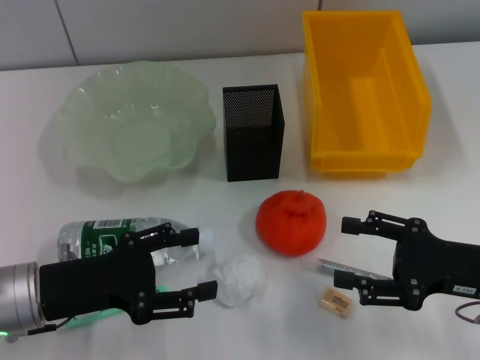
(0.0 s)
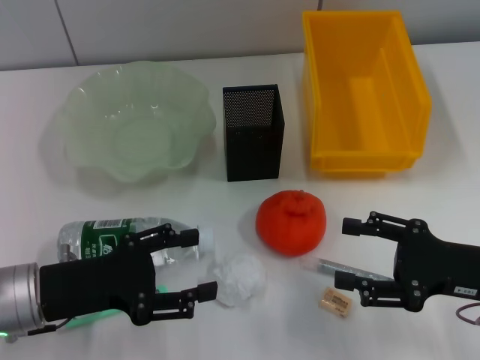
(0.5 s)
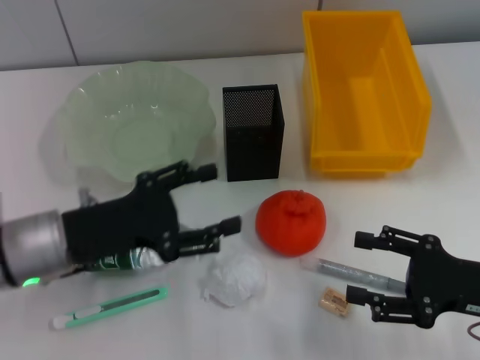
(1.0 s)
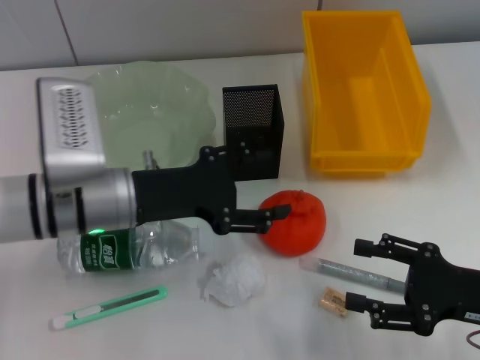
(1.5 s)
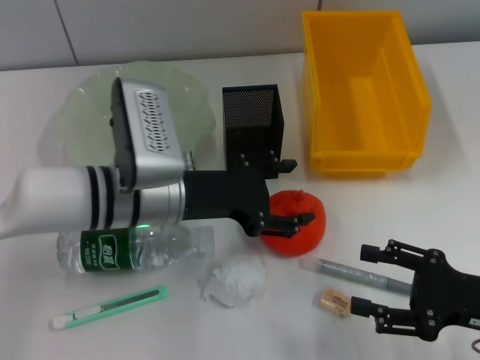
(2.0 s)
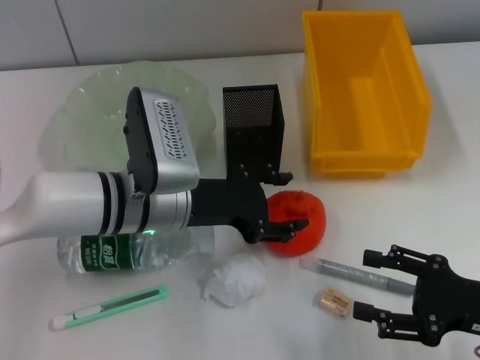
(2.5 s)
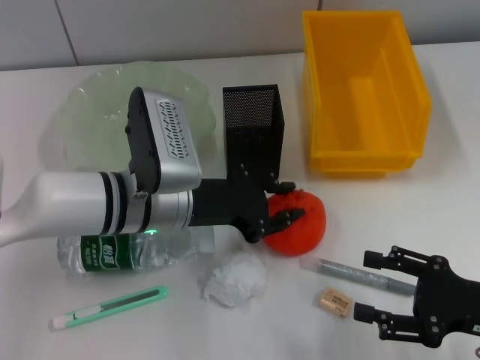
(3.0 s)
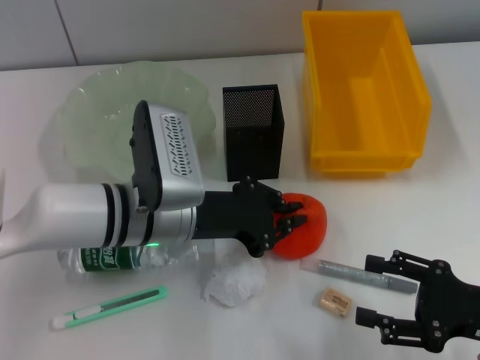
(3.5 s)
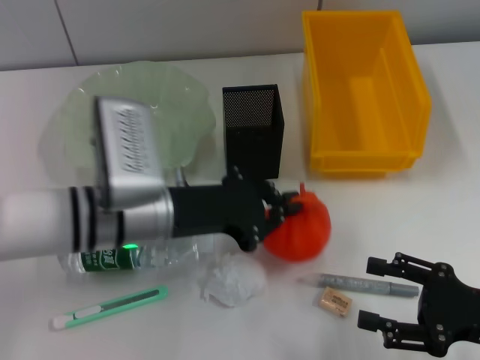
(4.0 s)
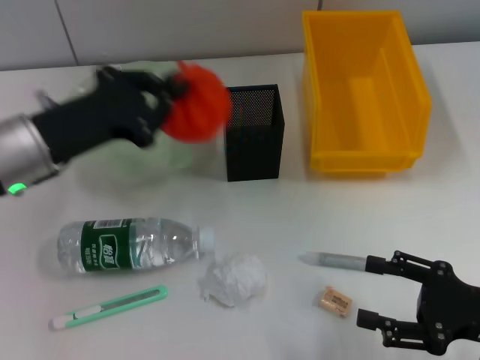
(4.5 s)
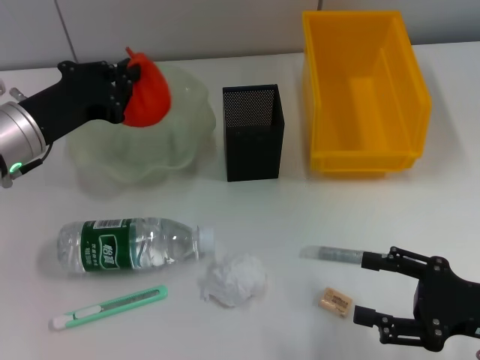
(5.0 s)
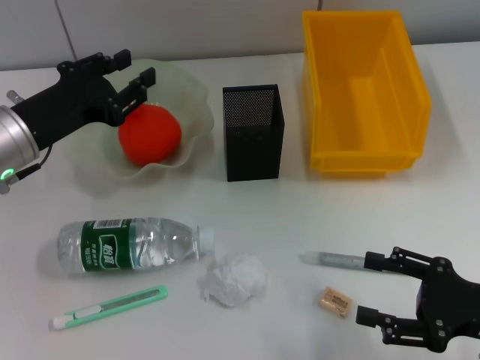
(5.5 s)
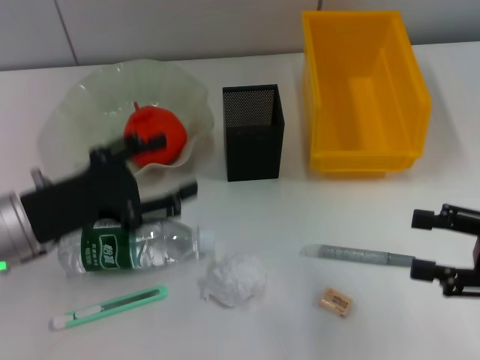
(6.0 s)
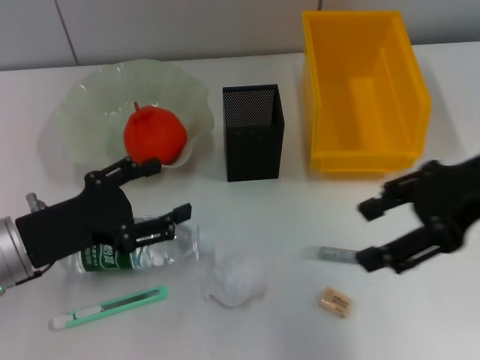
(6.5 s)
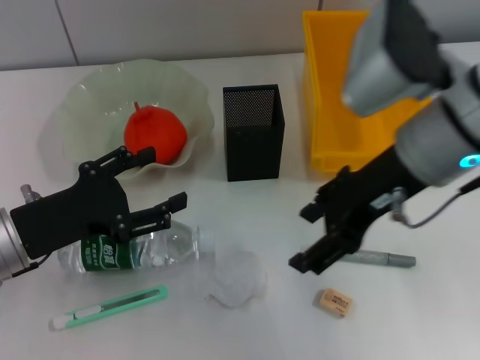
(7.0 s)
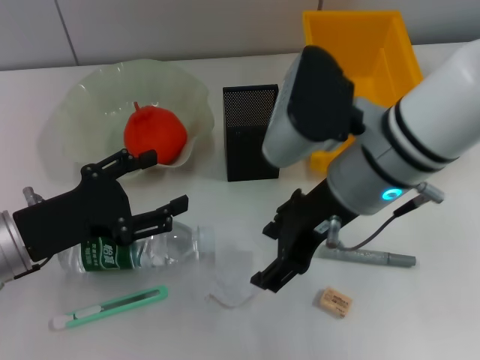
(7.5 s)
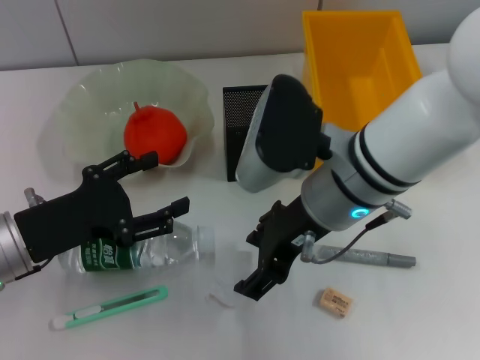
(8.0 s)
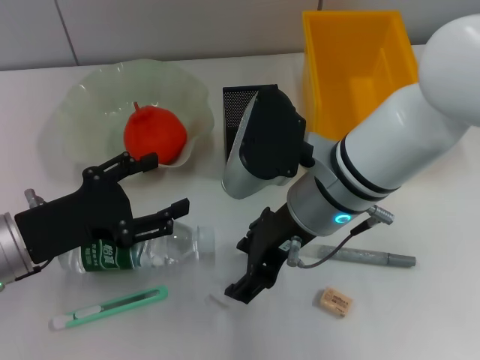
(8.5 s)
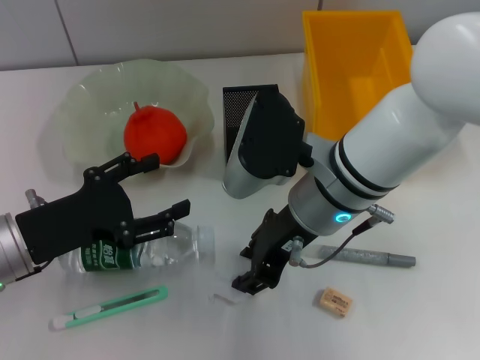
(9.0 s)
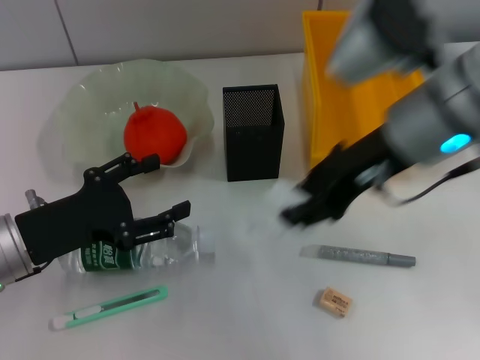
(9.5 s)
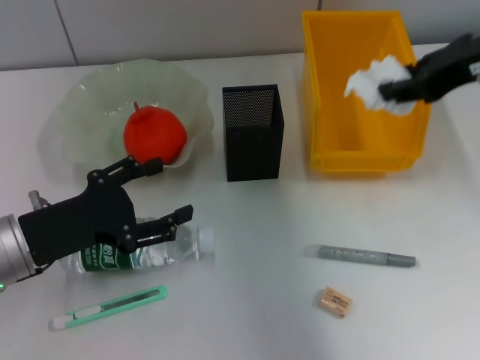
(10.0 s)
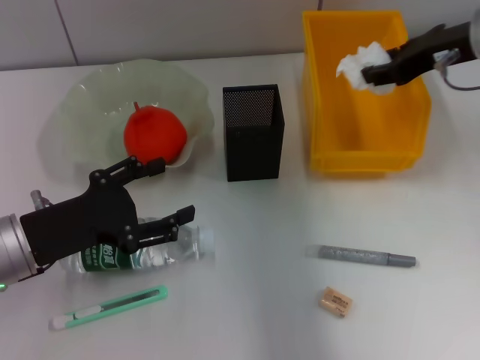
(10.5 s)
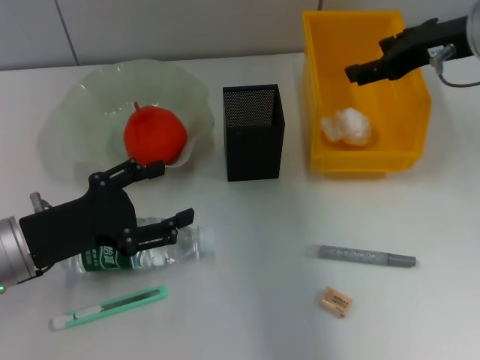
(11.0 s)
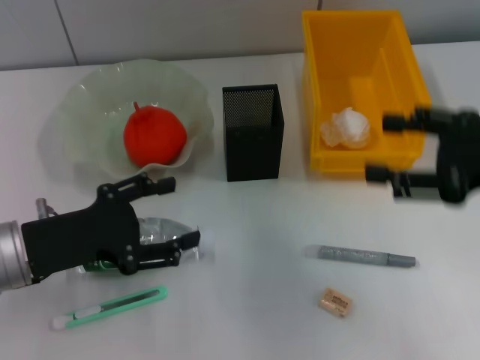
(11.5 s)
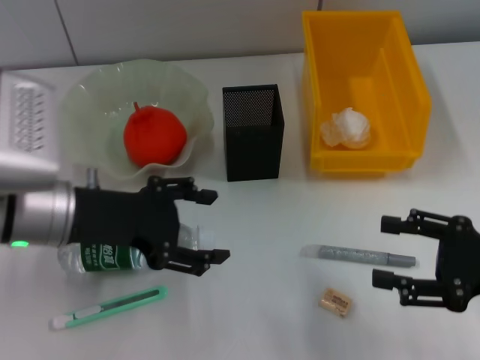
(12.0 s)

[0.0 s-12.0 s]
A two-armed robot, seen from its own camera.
Step, 0.0 to 3.0 s: Grab the orange with the left hand.
Step, 3.5 to 5.5 s: Place the orange into the fruit bowl with the left hand.
Step, 6.0 to 8.5 s: Grab the paper ball with the right hand.
Step, 9.0 to 10.5 s: Place the paper ball into the trash can with the right hand.
0.0 to 2.0 s: The left gripper is displaced to the right and forward by approximately 15 cm.
2.0 to 4.0 s: The left gripper closes.
4.0 to 6.0 s: The left gripper travels to the left by about 10 cm, and opens. The right gripper is displaced upward by some 5 cm.
6.0 to 8.0 s: The right gripper moves to the left and forward, roughly 25 cm.
8.0 to 10.0 s: The right gripper shifts approximately 20 cm to the right and upward, and closes its fingers.
10.0 to 12.0 s: The right gripper is displaced downward and backward by approximately 20 cm, and opens up. Meanwhile the left gripper moves upward, some 5 cm.

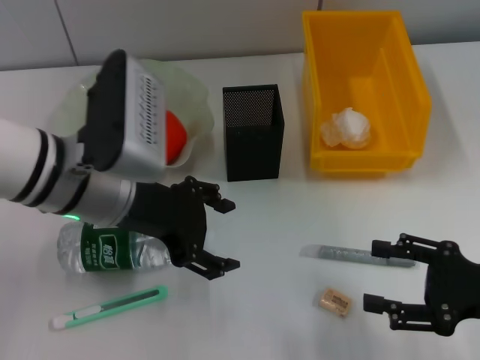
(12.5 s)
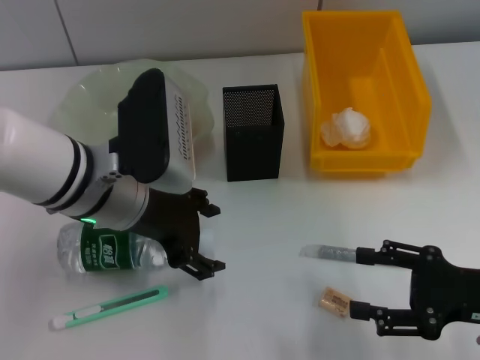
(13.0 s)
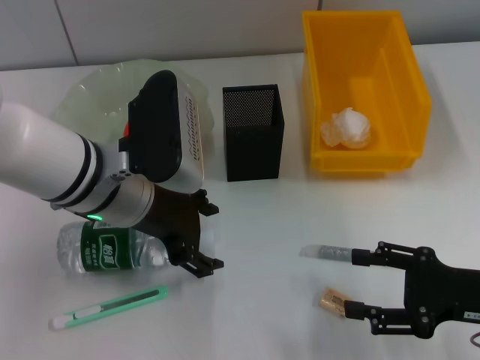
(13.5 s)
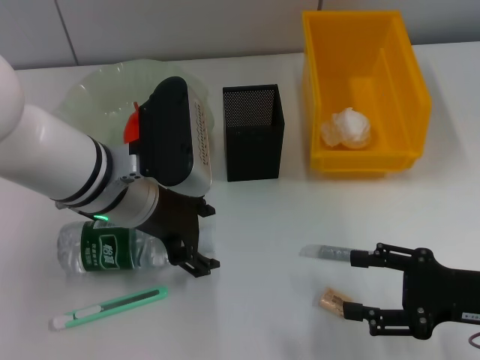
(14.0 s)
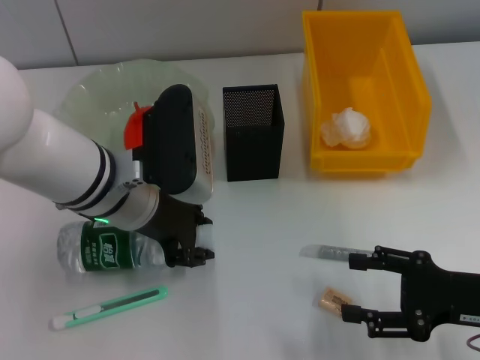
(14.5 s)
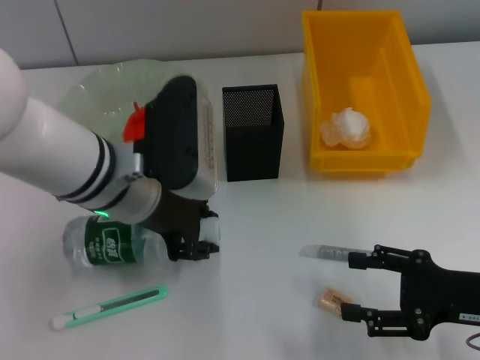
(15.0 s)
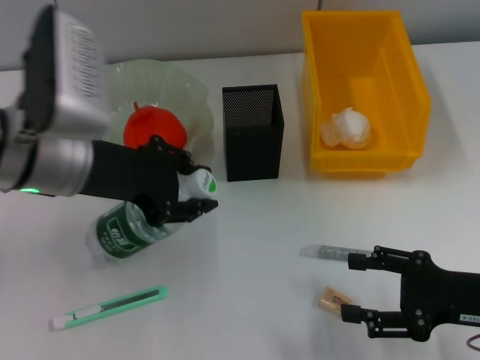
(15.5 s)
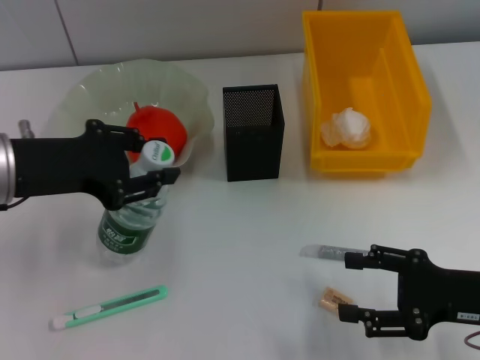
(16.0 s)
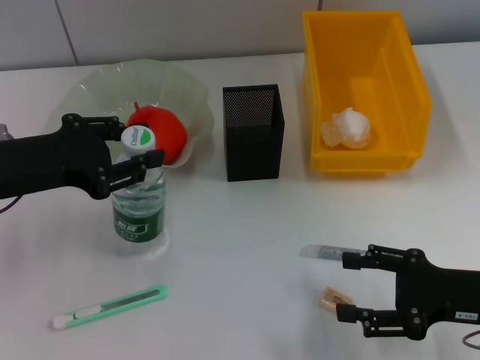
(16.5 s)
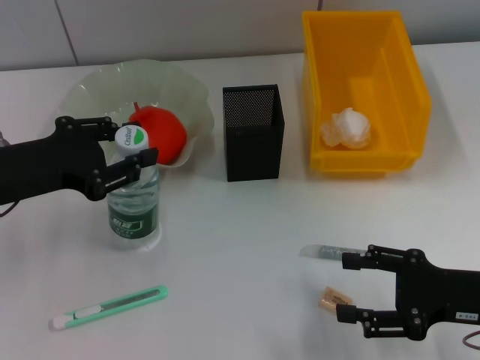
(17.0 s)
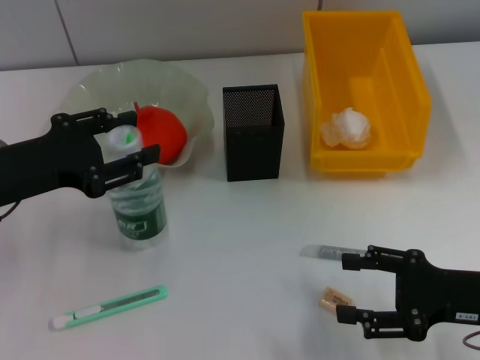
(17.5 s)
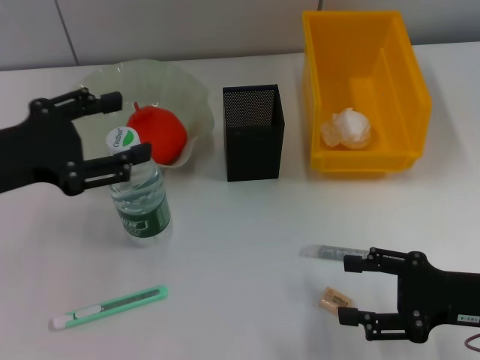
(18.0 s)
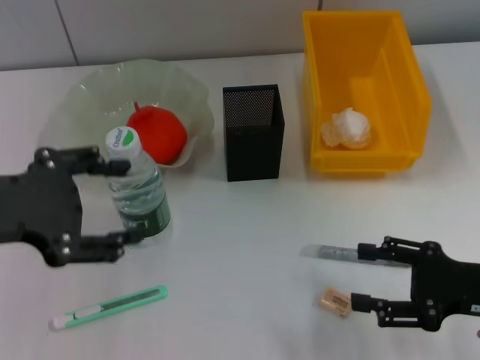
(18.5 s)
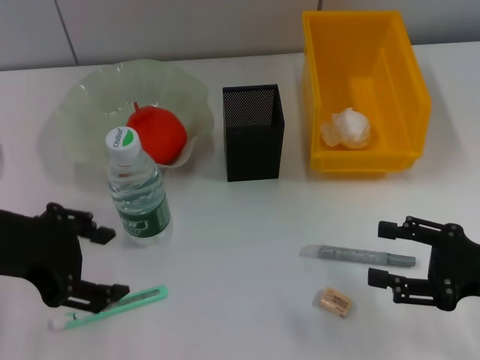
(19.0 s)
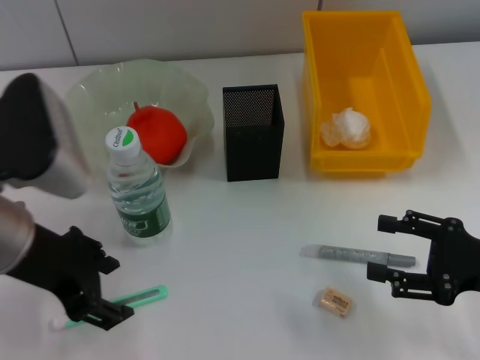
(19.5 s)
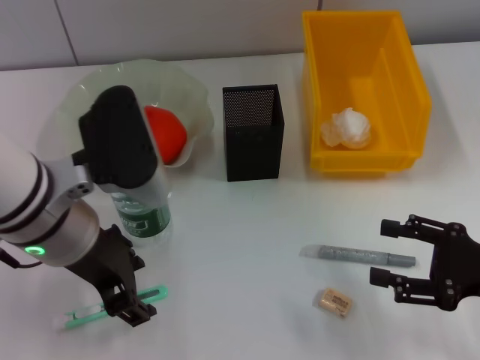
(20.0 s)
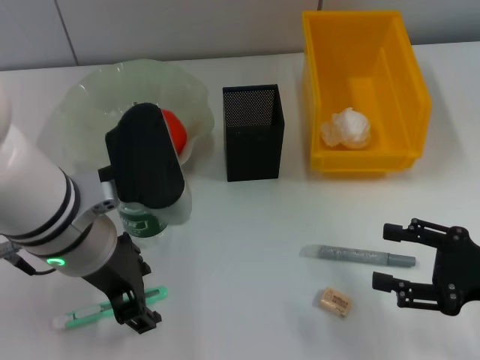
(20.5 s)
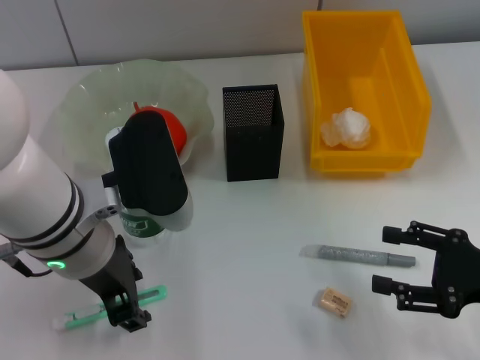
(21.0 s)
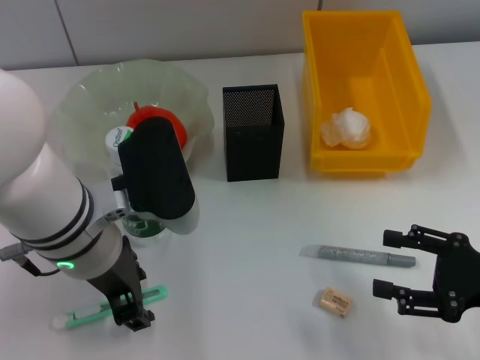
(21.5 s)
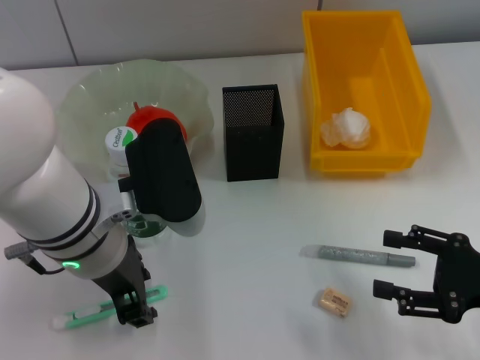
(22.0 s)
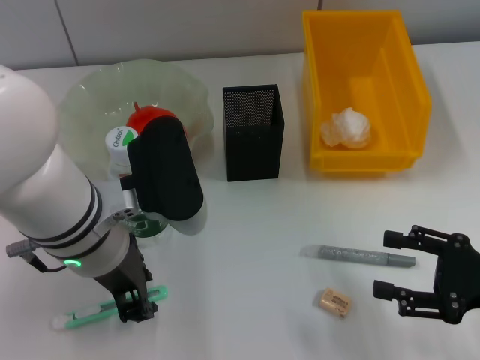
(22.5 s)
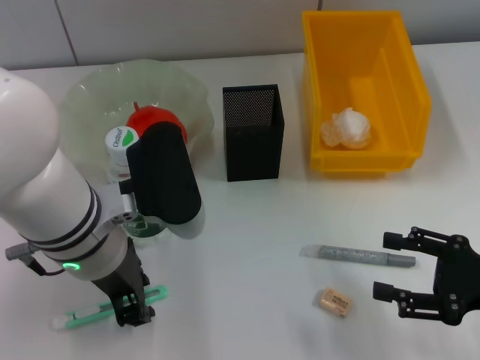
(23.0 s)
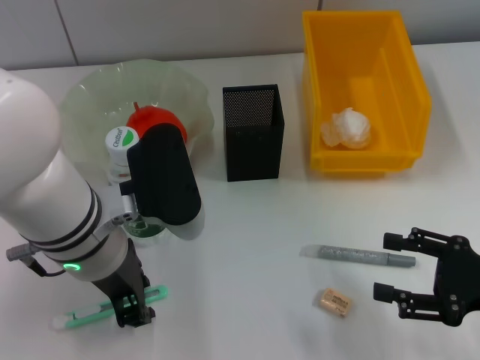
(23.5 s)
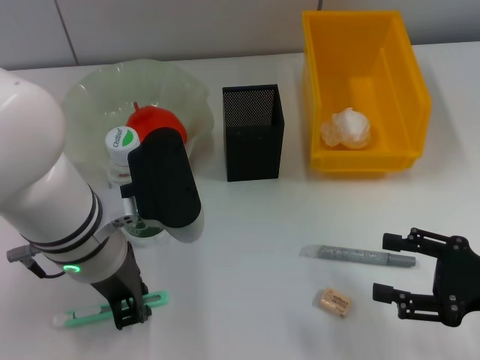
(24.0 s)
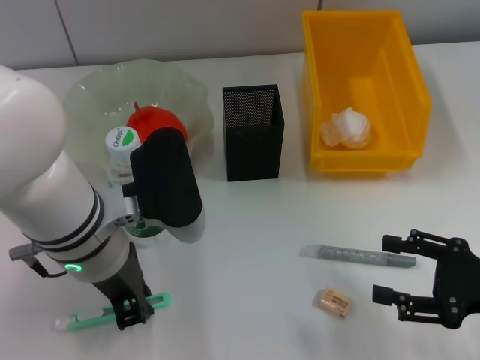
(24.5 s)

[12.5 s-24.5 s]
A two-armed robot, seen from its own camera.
Step, 12.5 to 14.5 s: Grab the water bottle with the left hand.
Step, 15.0 to 17.5 s: Place the water bottle on the table with the left hand.
Step, 18.0 to 24.0 s: Grab the blue utility knife with the left hand.
12.5 to 14.5 s: The grippers stay close to where they were, moving slightly.
14.5 to 16.5 s: The left gripper shifts roughly 15 cm to the left.
16.5 to 18.5 s: The left gripper travels backward and upward by approximately 10 cm, and opens.
18.5 to 20.5 s: The left gripper goes approximately 10 cm to the right.
20.5 to 22.5 s: There are only small adjustments of the grippers.
22.5 to 24.5 s: The two grippers keep their place.

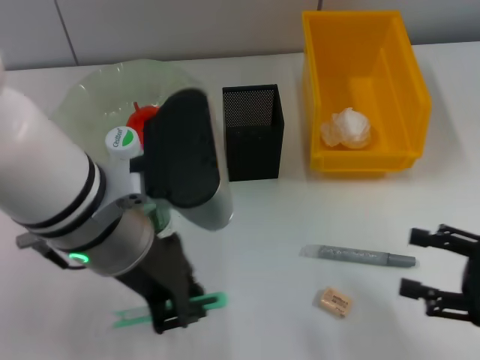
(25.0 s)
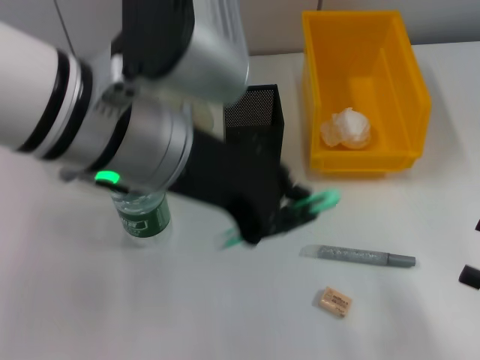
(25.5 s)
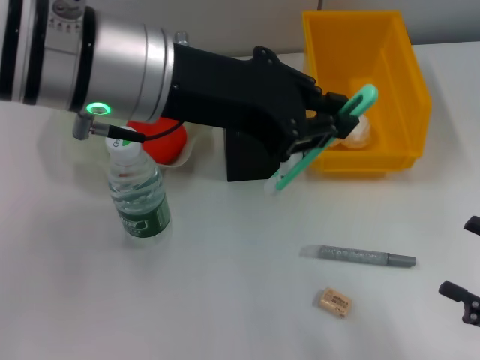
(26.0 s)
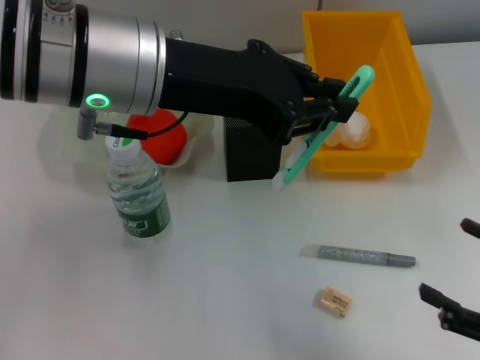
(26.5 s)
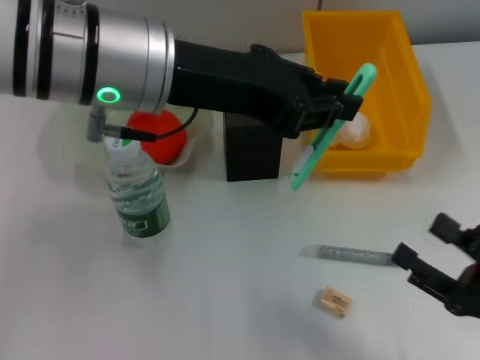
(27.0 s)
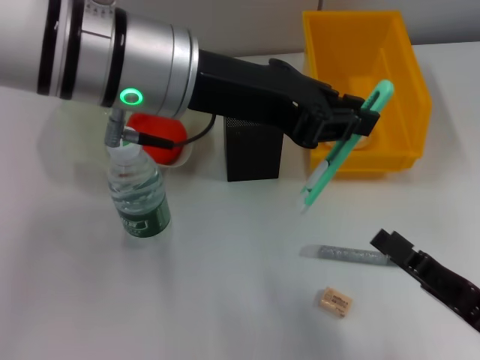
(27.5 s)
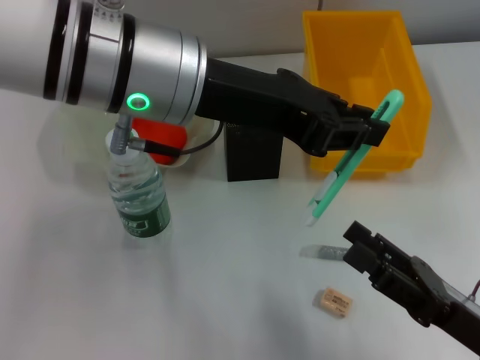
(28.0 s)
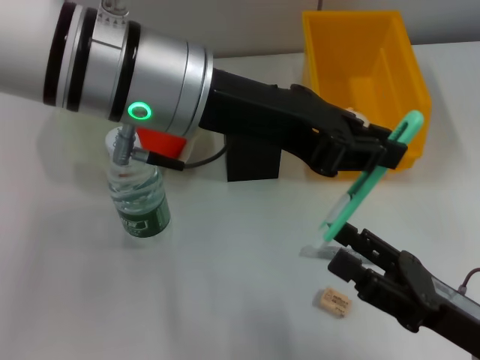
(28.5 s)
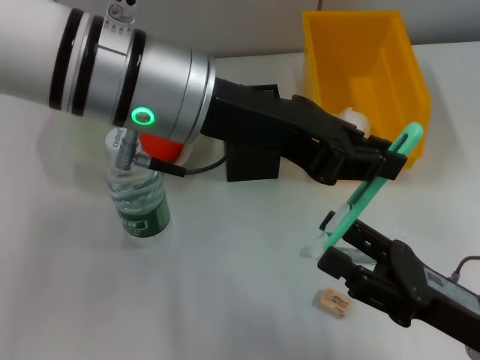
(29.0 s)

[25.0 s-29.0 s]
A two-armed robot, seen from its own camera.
25.0 to 27.0 s: The right gripper ends up about 5 cm from where it was. Meanwhile the left gripper shifts about 10 cm upward and forward.
27.0 to 29.0 s: The right gripper travels to the left by roughly 5 cm.
